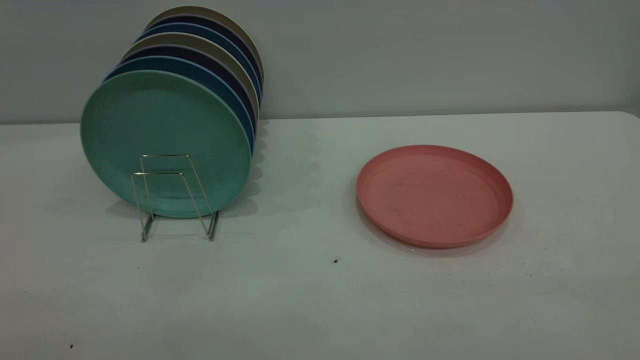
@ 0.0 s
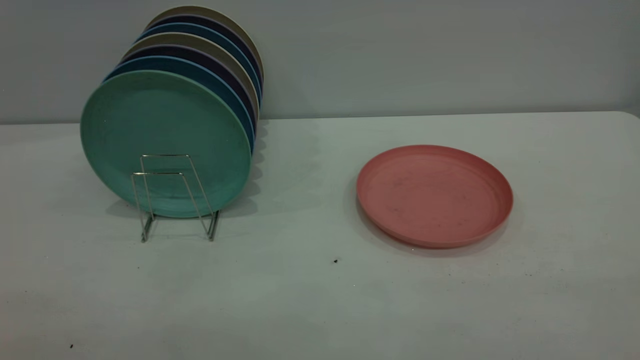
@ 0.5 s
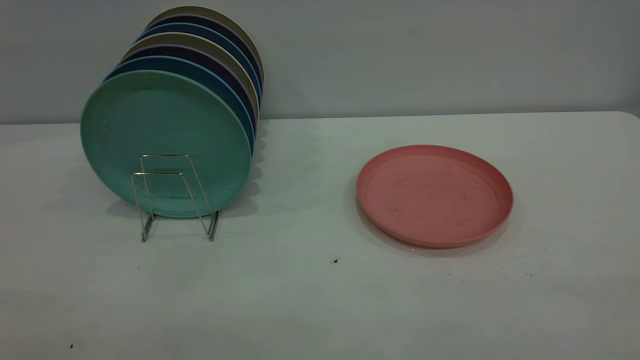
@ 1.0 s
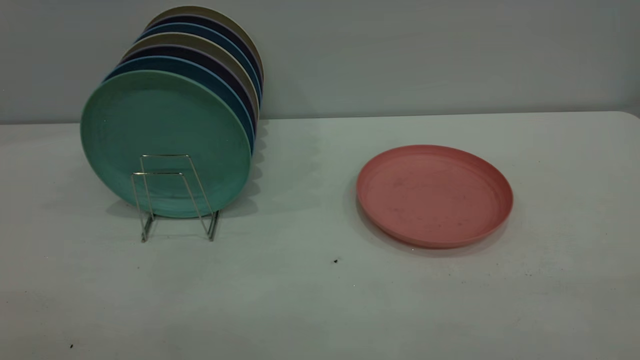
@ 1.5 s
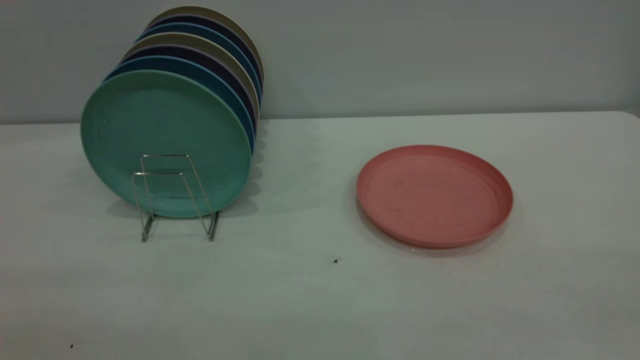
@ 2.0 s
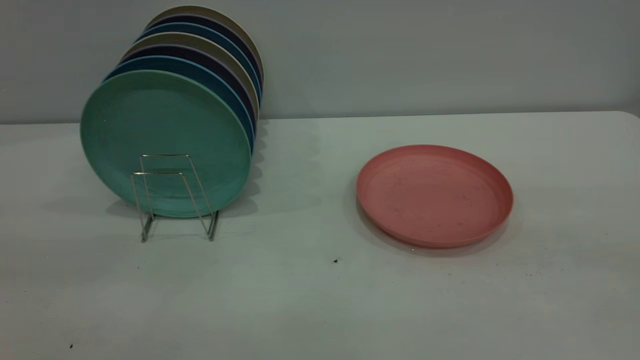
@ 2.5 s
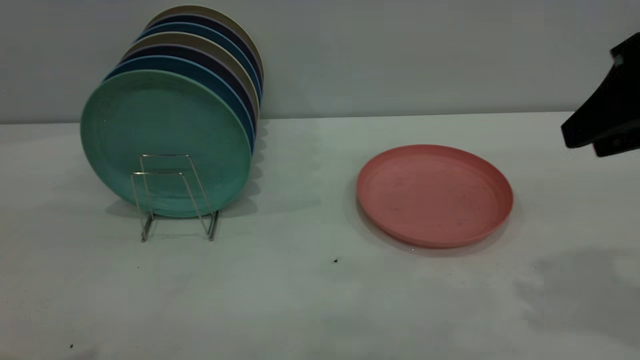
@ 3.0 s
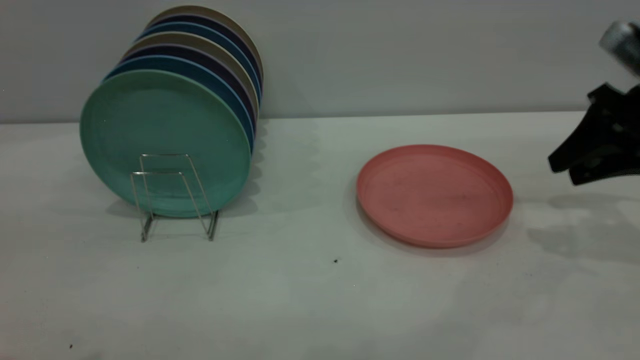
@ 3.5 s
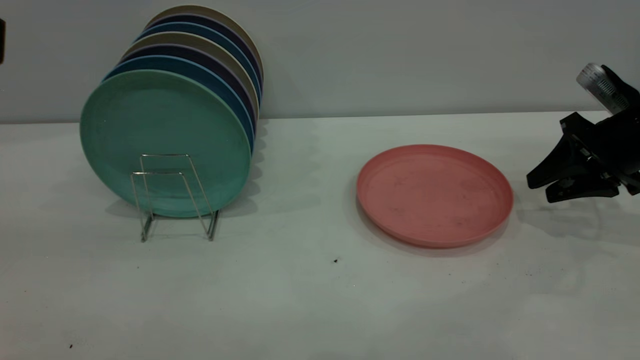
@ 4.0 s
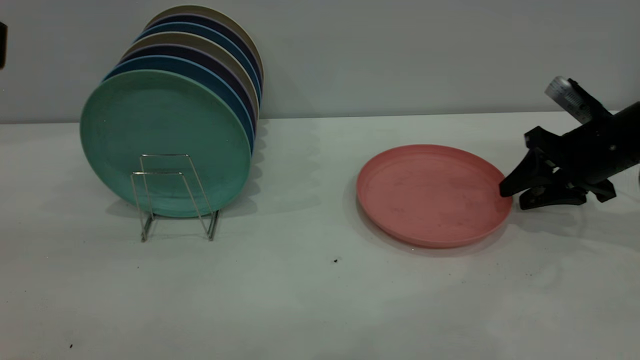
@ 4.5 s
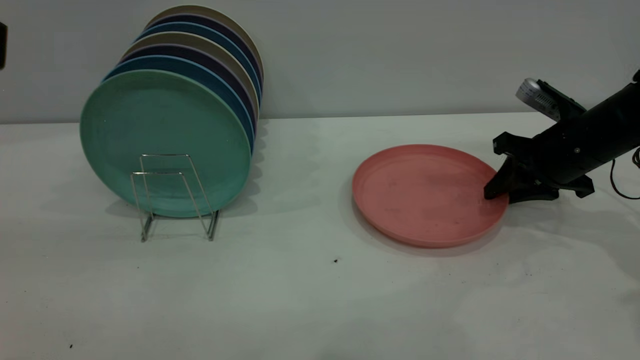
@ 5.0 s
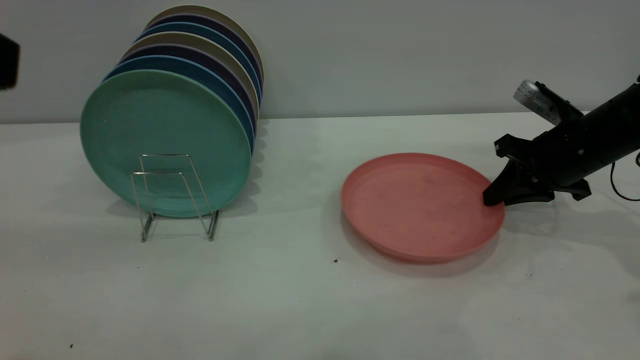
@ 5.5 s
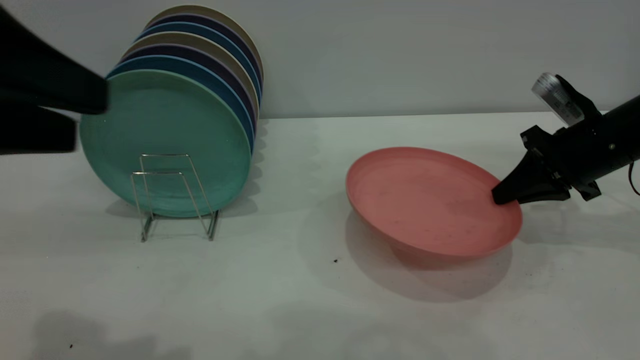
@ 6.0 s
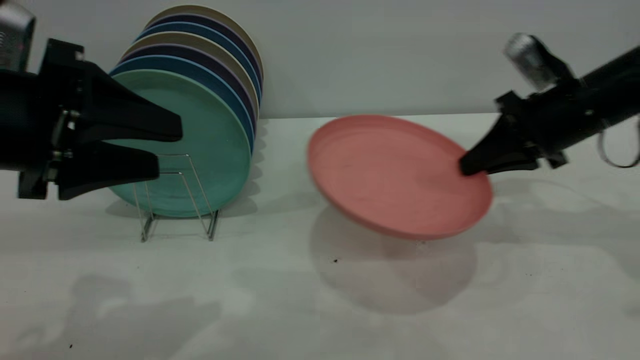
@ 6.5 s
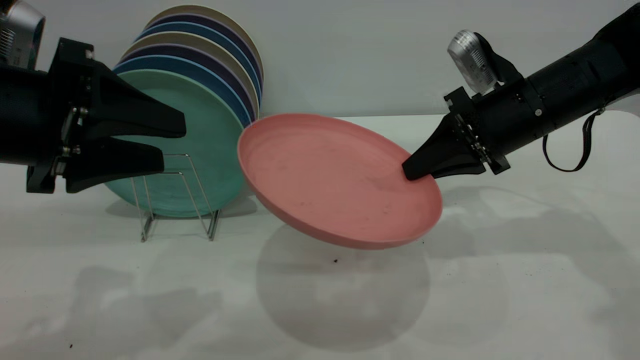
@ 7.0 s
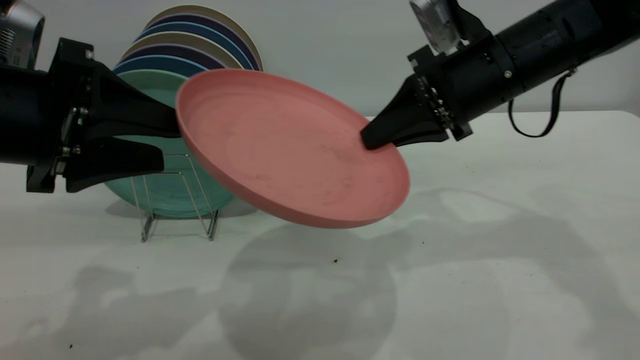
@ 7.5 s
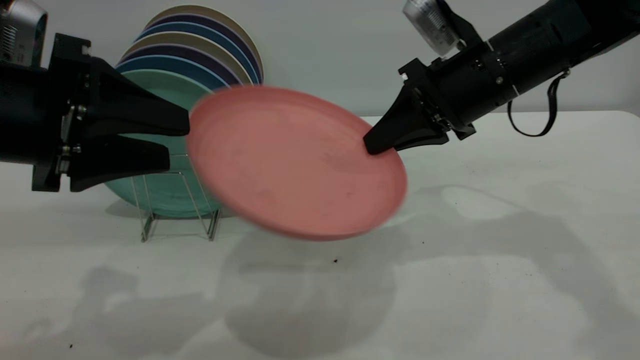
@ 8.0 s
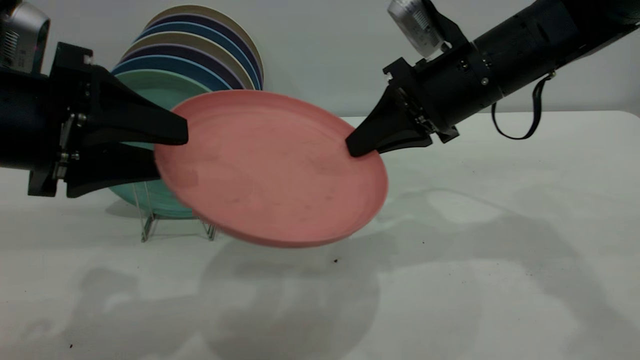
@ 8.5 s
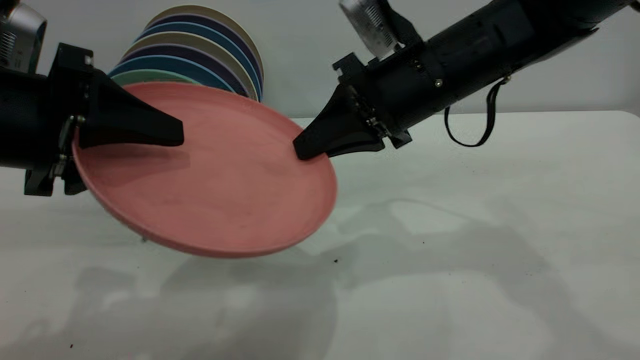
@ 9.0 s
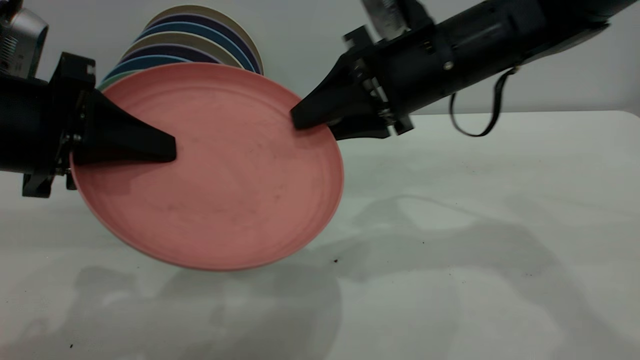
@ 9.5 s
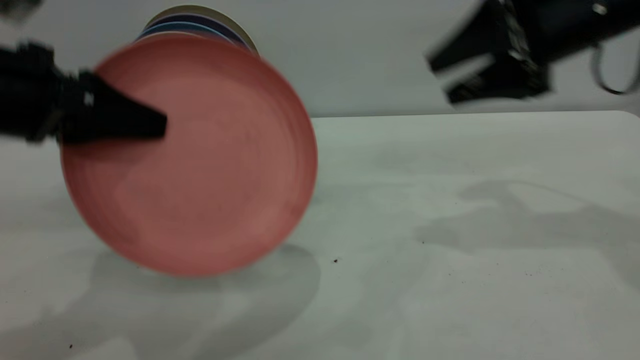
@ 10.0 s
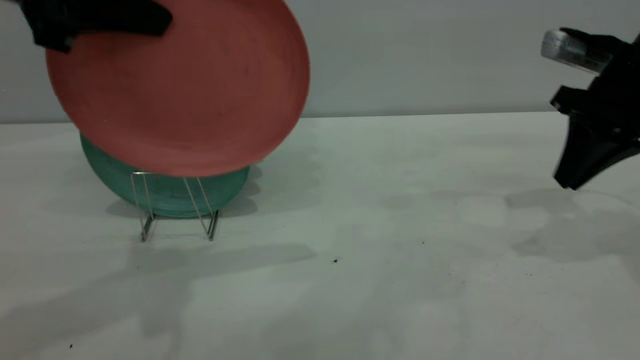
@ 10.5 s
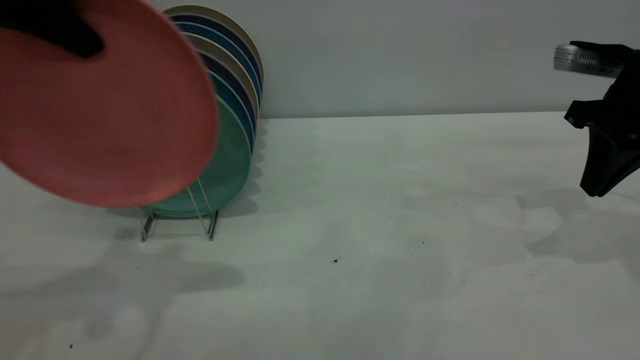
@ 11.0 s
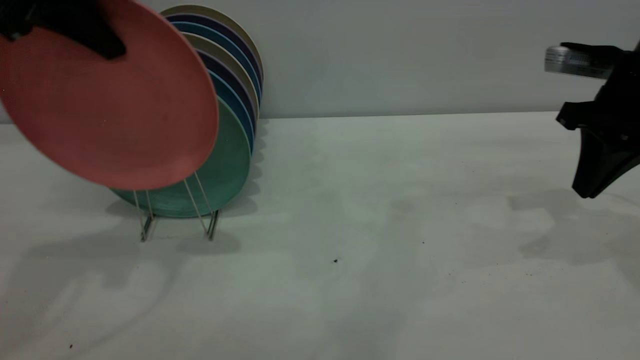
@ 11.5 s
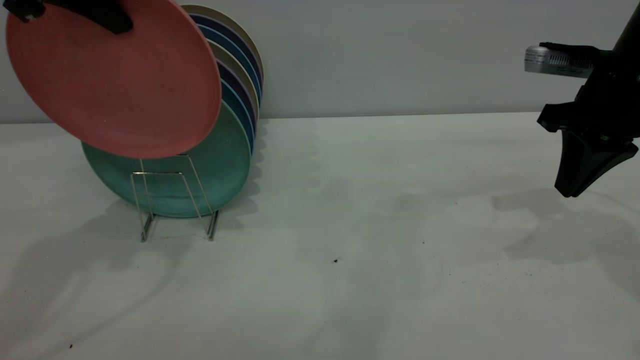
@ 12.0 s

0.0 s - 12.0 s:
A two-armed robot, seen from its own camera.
Task of the whole recording: the right gripper grasp the pink plate, the right gripper pass the pink plate to the left gripper, and the left gripper place the pink plate on the plate rack.
Step, 0.0 s - 6.0 s: Pick up the plate with the right gripper.
Step, 6.5 s - 10.0 s: Pass the plate from the right gripper to the left gripper.
2.0 s - 4.0 s: The right gripper shifts roughly 50 cm forward and downward.
4.0 s - 6.0 s: The right gripper closes its fingers, while the left gripper is displaced downward and forward by some 10 cm.
6.0 s - 8.0 s: The left gripper goes roughly 5 cm downward. The right gripper goes some 15 cm to the left and upward.
8.0 s - 10.0 s: The right gripper is displaced to the right by about 10 cm, and opens its fingers. The left gripper closes up.
10.0 s - 12.0 s: The right gripper changes place by roughly 5 cm, and closes up. The left gripper goes roughly 15 cm forward and upward.

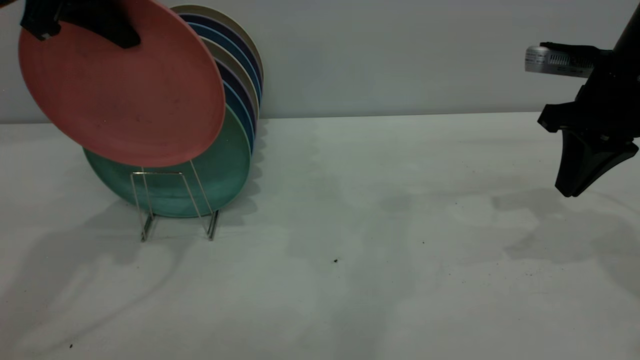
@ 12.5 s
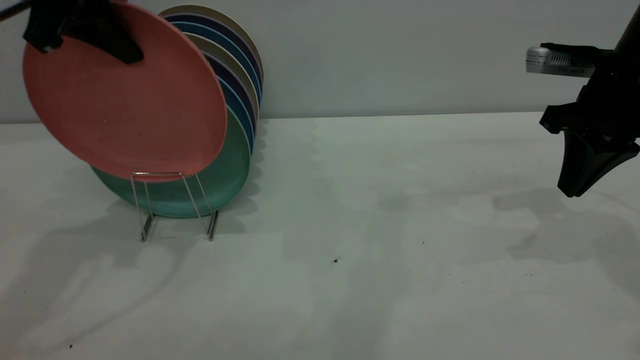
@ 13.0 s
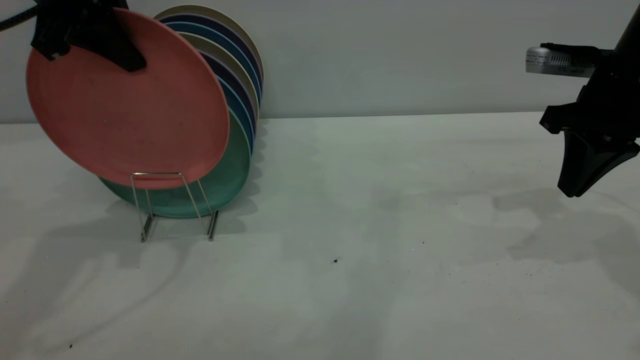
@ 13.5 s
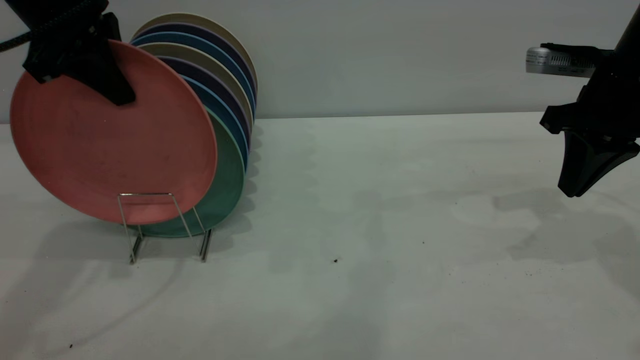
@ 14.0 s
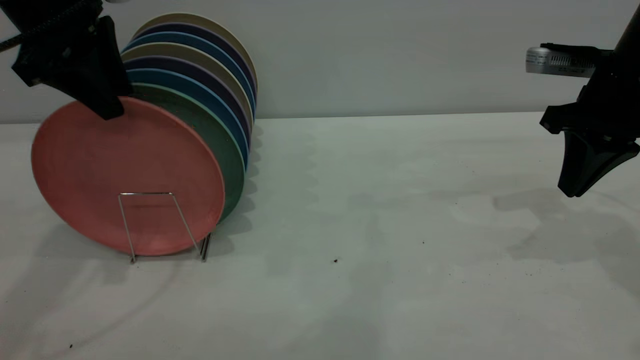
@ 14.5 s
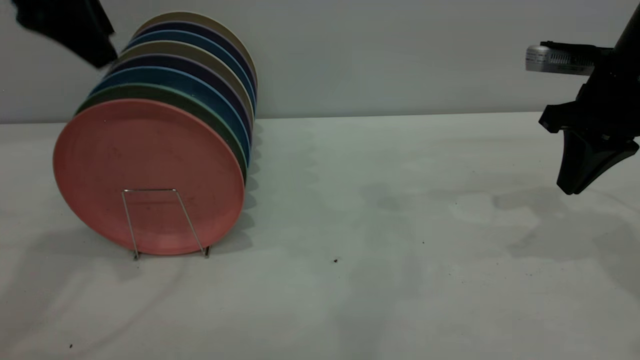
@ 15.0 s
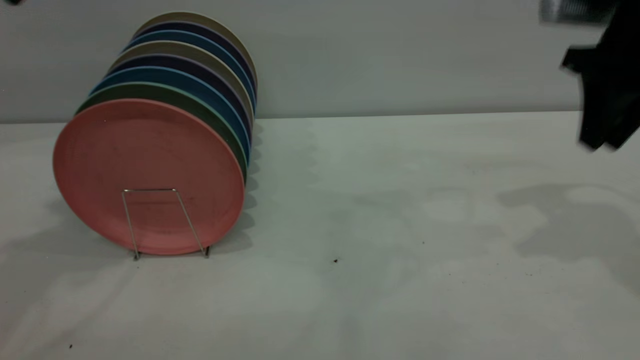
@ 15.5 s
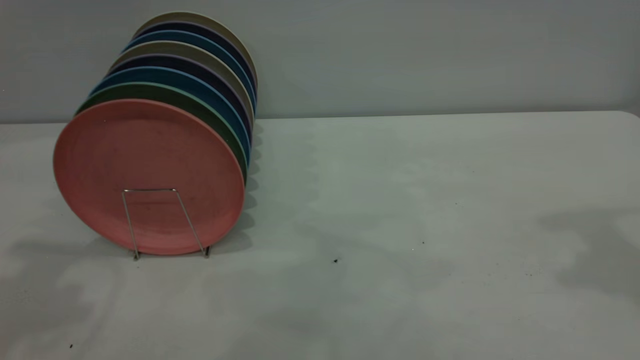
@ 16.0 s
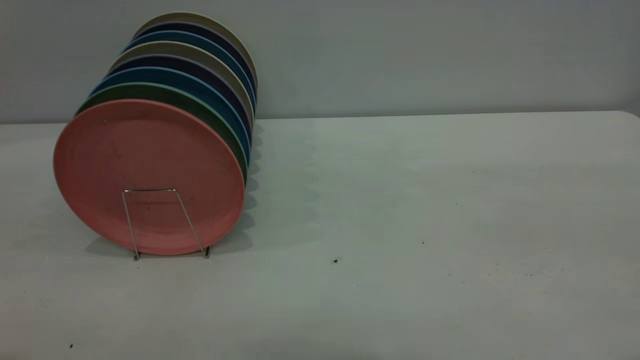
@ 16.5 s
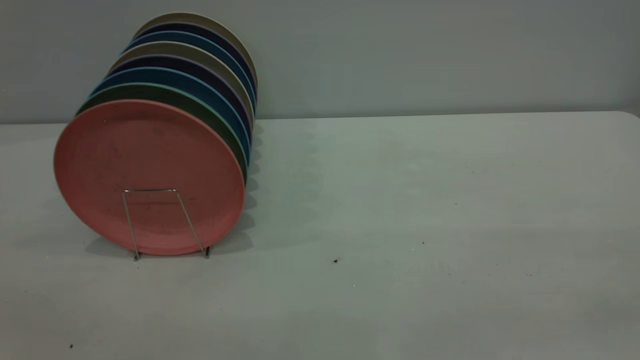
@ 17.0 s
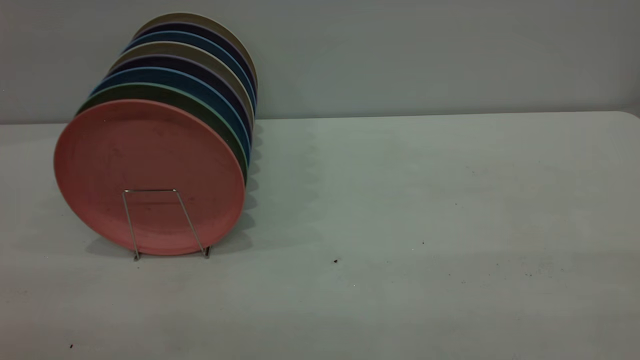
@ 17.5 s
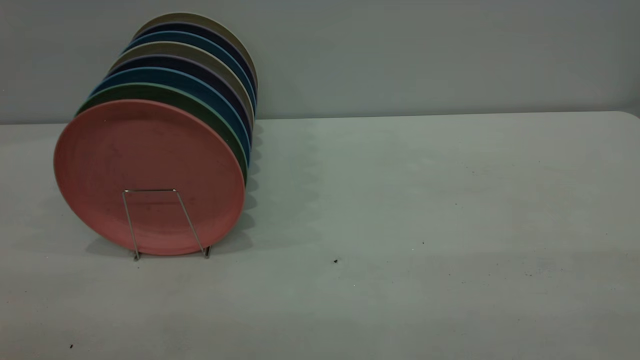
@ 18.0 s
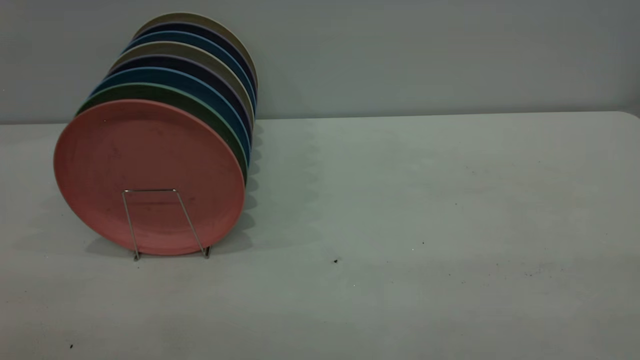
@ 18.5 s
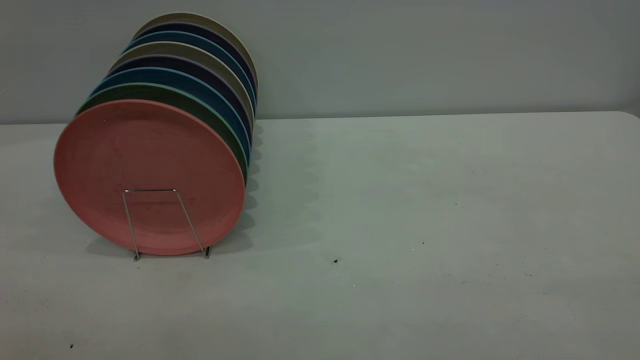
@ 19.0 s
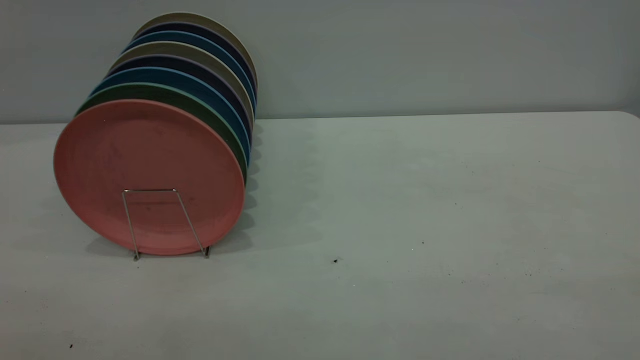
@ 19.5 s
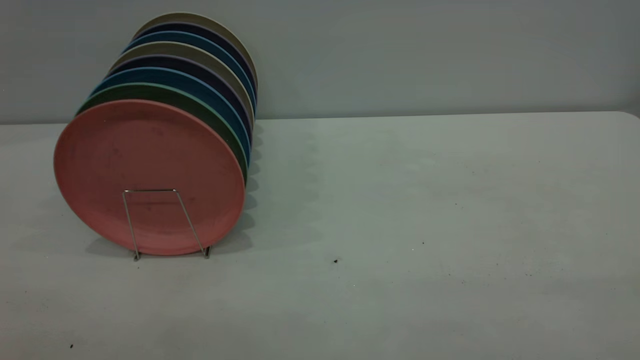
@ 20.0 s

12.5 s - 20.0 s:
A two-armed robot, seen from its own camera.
Task of the whole recording: the right gripper grasp the pink plate, the right gripper pass the pink plate to the left gripper, and the left gripper place the pink plate on the plate rack.
Step, 12.5 s - 15.0 s: Place the plate on the shelf.
12.5 s - 14.5 s: The left gripper opens its fingers.
14.5 s - 16.5 s: The right gripper heads backward and upward, covering approximately 30 cm, and opens its fingers; the left gripper travels backward by approximately 25 cm.
